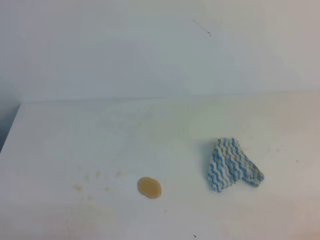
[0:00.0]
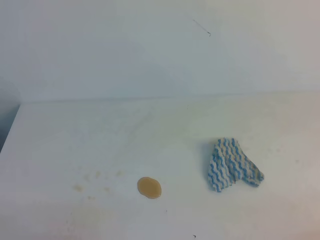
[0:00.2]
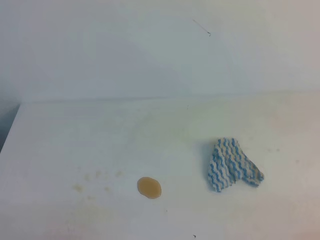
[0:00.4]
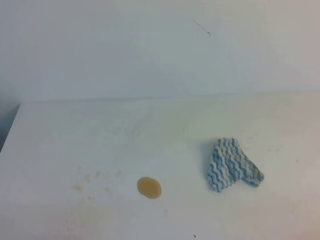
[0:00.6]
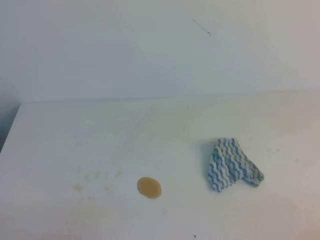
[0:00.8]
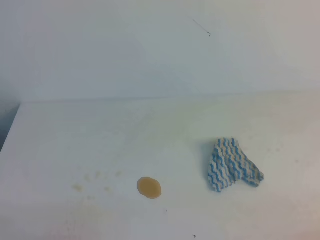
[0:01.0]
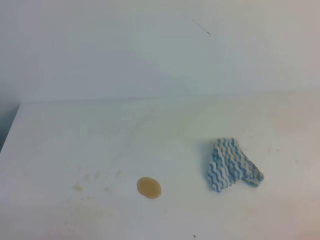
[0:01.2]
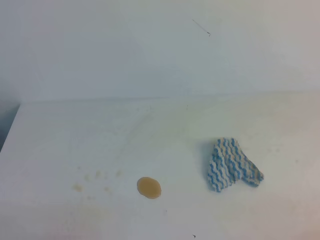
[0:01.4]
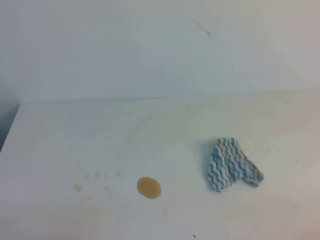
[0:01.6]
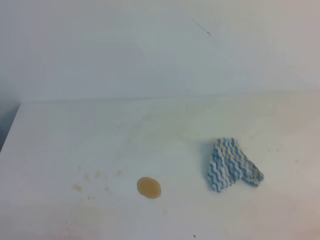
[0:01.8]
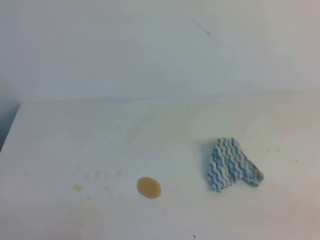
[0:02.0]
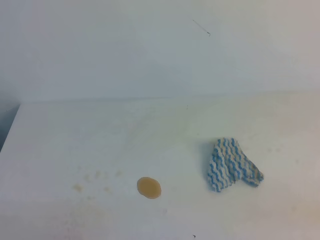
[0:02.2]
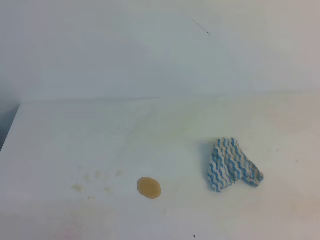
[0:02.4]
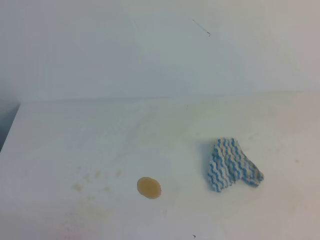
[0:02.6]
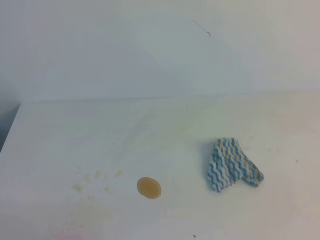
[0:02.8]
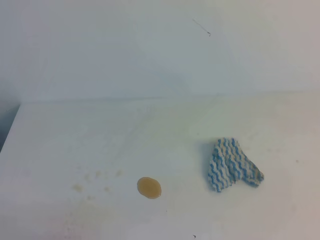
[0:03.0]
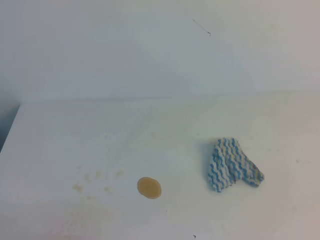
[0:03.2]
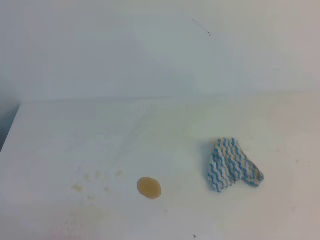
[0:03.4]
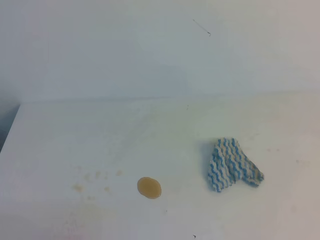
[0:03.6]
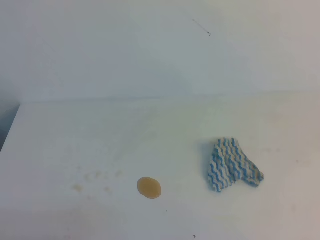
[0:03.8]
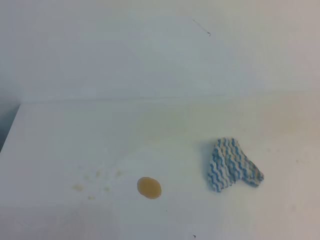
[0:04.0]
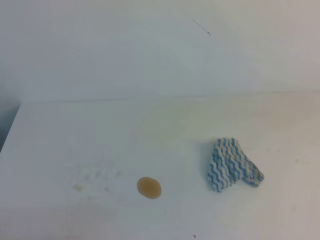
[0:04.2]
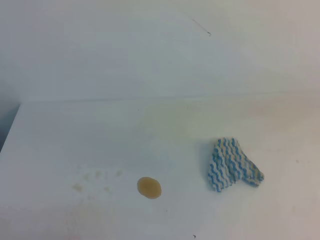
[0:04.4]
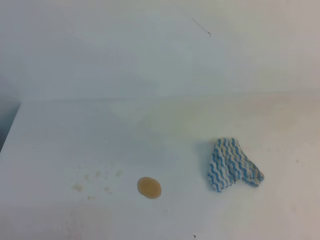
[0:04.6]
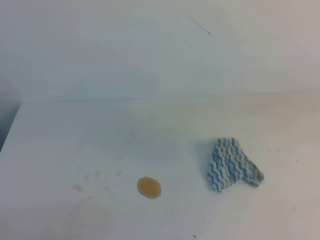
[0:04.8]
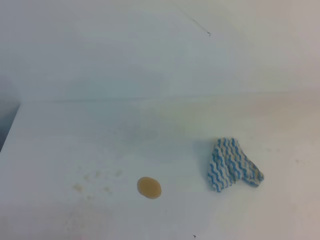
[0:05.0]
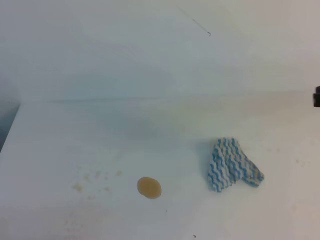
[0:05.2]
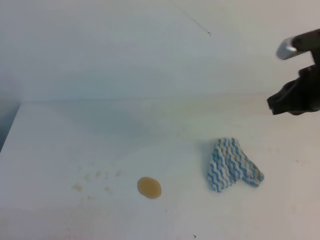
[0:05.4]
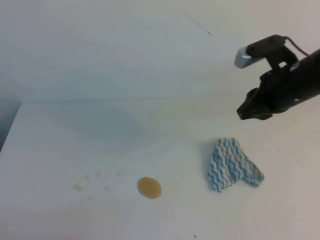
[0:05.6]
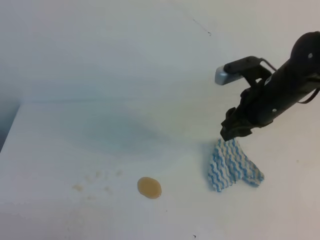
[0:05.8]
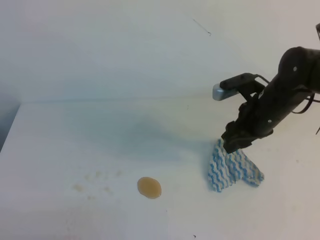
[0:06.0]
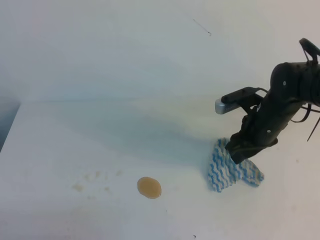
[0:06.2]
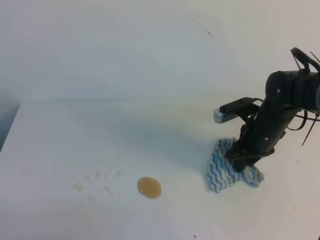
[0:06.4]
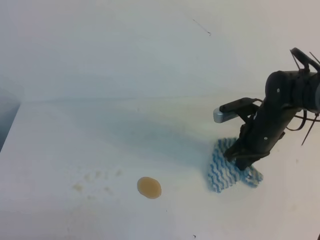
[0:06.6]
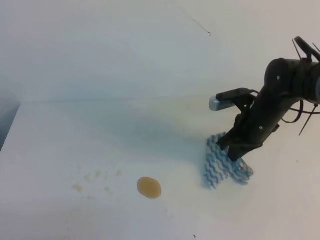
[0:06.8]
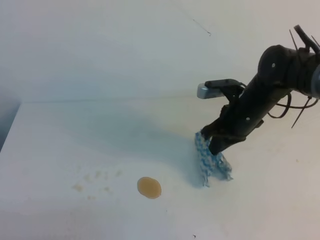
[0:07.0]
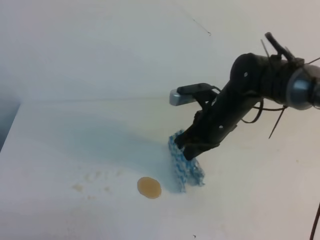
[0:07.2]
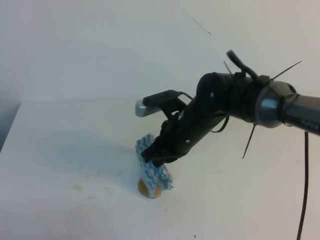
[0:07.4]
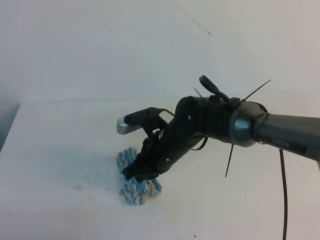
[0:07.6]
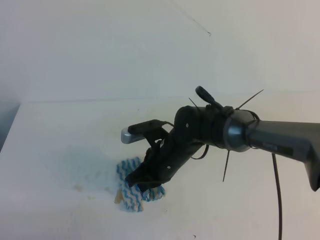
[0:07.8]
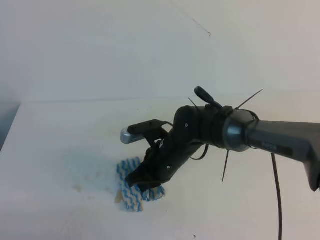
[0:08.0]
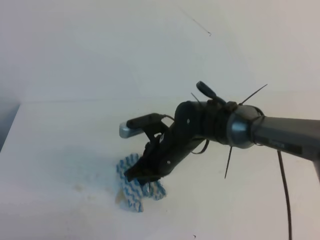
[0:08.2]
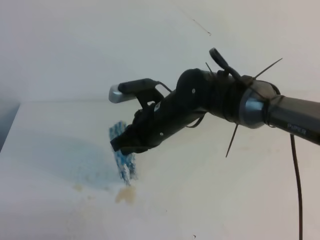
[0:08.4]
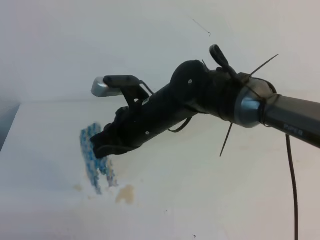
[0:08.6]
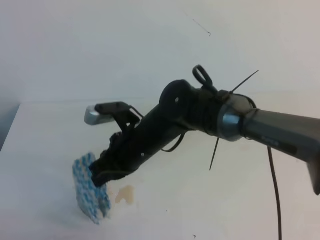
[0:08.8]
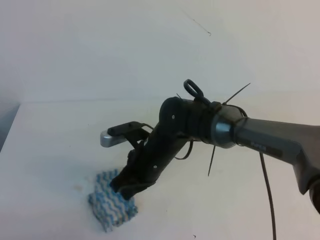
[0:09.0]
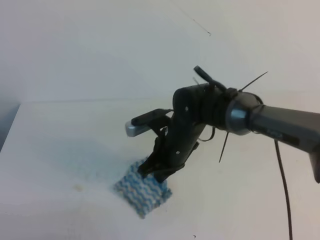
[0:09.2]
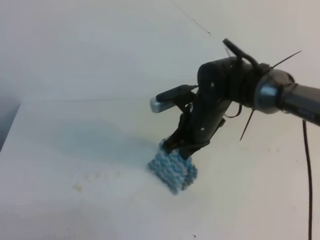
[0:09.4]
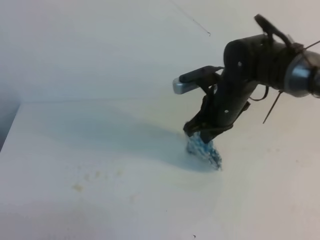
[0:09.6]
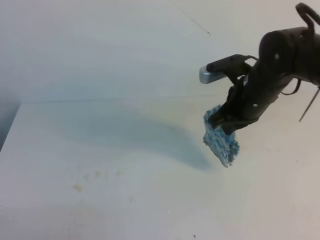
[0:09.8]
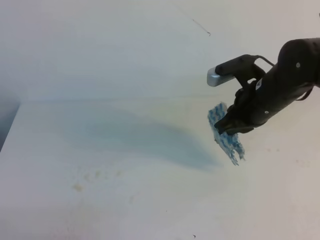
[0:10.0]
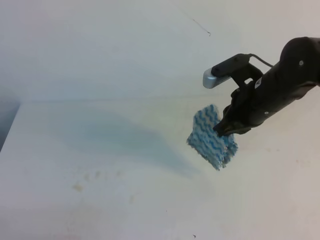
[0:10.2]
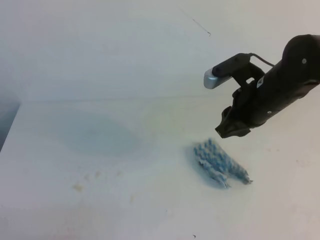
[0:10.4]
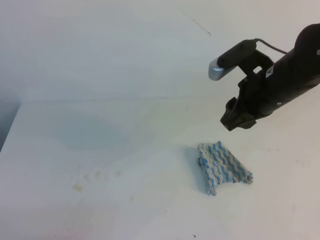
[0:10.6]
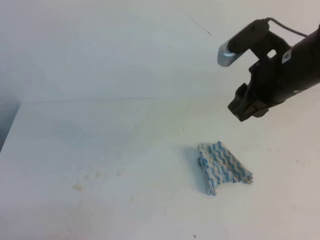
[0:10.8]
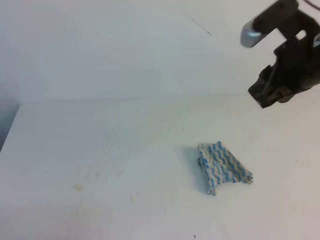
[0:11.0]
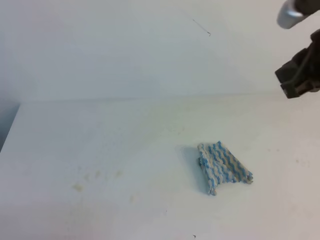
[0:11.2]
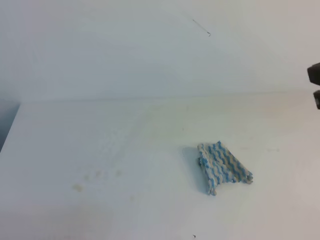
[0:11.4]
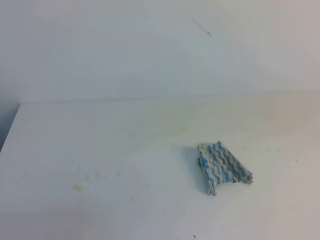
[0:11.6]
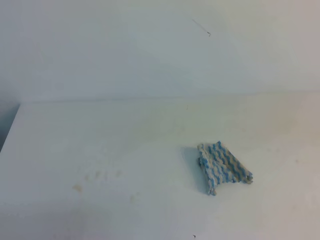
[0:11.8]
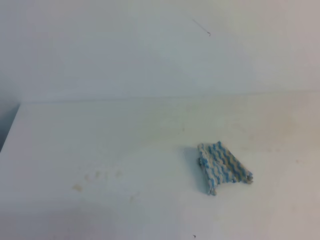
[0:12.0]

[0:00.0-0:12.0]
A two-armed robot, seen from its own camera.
0:00.0 to 0:01.6: Neither gripper changes place.
0:04.4 to 0:06.0: The right gripper moves forward, to the left and downward, roughly 25 cm, and opens up.
0:06.0 to 0:07.6: The right gripper is displaced to the left by some 15 cm, and closes up.
0:07.6 to 0:09.0: The right gripper moves about 5 cm upward and comes back.
0:09.0 to 0:10.4: The right gripper moves to the right and upward, about 20 cm, and opens its fingers.
0:10.4 to 0:12.0: The right gripper is displaced backward, to the right and upward by roughly 25 cm, and closes up.

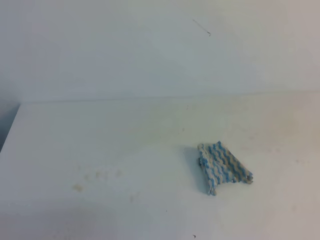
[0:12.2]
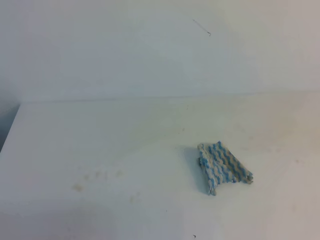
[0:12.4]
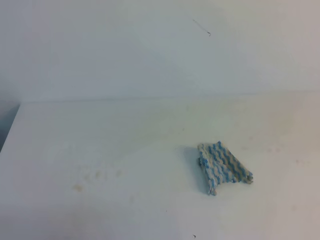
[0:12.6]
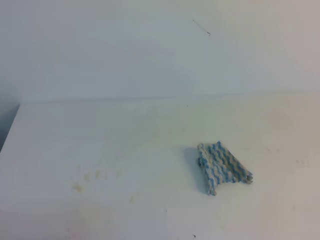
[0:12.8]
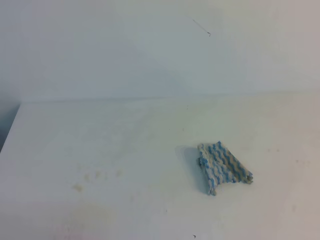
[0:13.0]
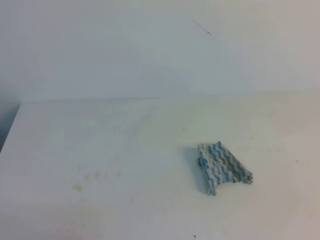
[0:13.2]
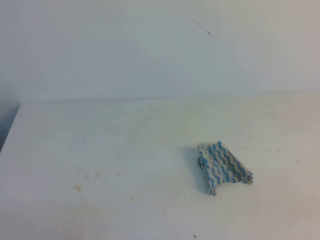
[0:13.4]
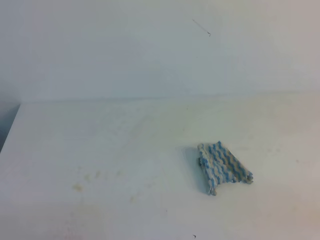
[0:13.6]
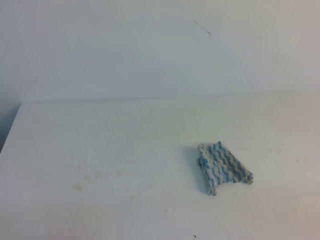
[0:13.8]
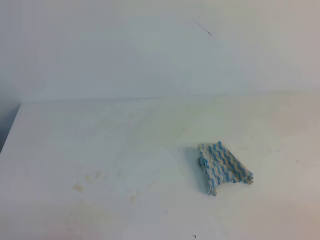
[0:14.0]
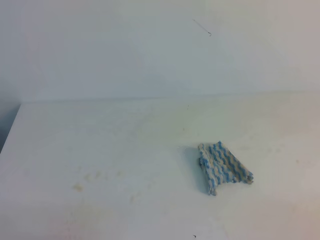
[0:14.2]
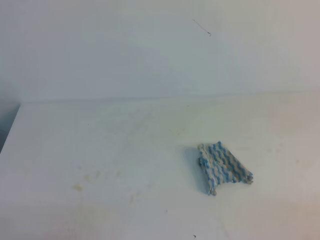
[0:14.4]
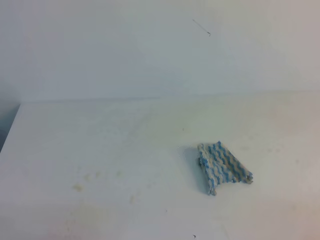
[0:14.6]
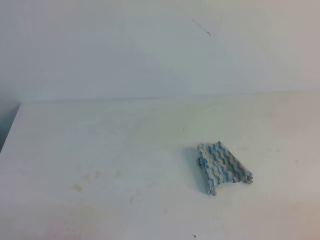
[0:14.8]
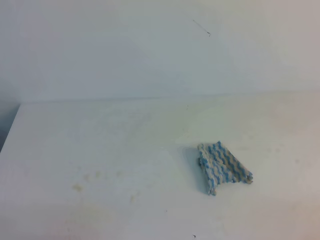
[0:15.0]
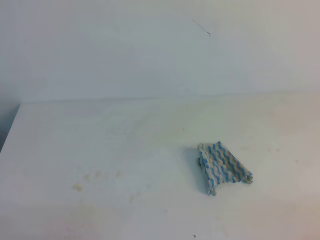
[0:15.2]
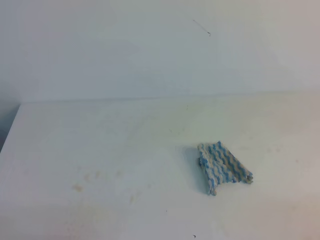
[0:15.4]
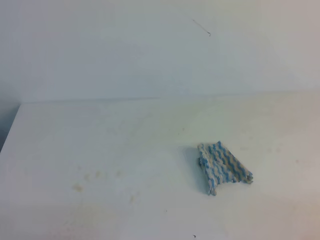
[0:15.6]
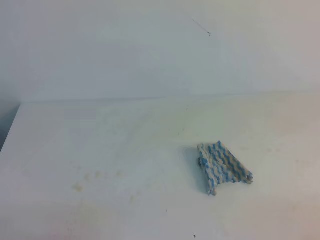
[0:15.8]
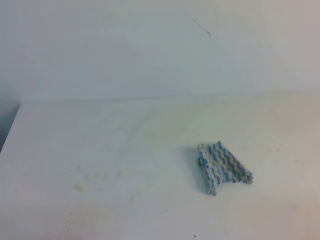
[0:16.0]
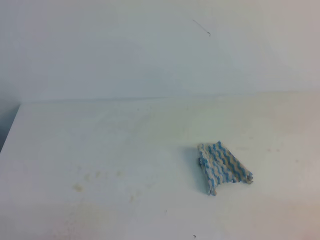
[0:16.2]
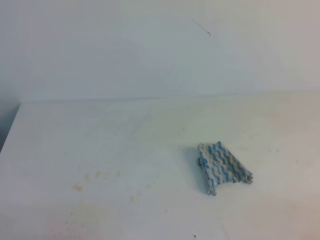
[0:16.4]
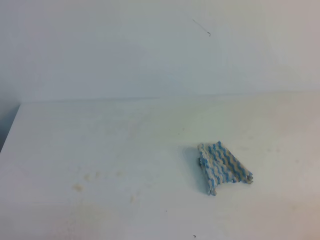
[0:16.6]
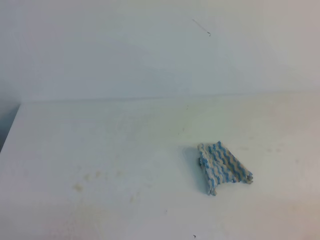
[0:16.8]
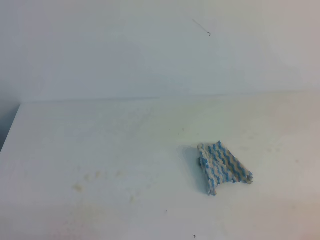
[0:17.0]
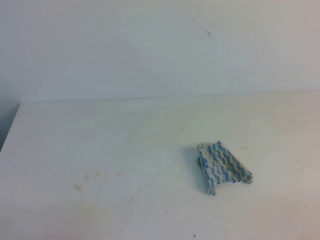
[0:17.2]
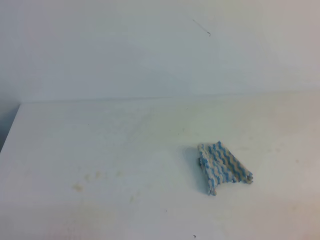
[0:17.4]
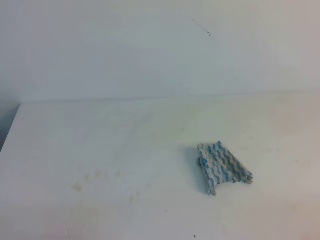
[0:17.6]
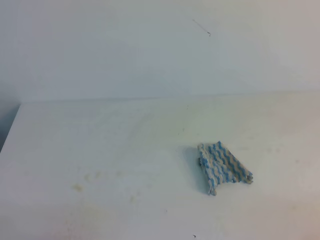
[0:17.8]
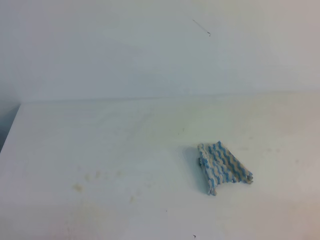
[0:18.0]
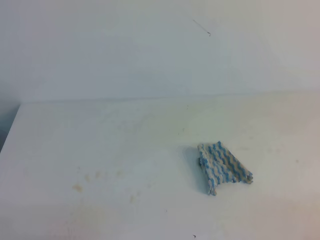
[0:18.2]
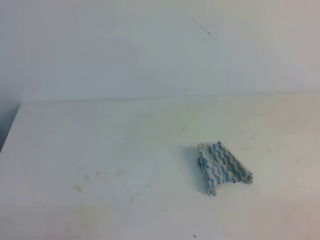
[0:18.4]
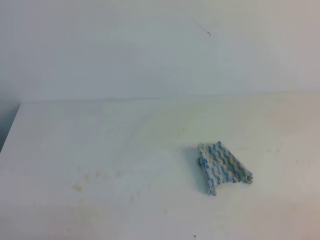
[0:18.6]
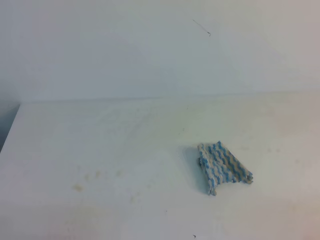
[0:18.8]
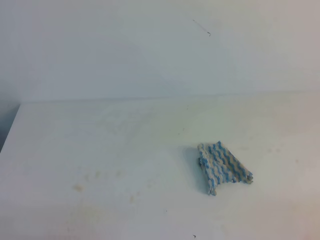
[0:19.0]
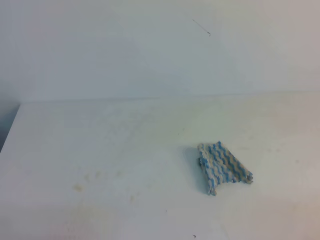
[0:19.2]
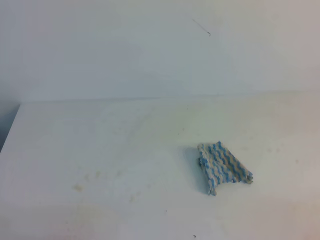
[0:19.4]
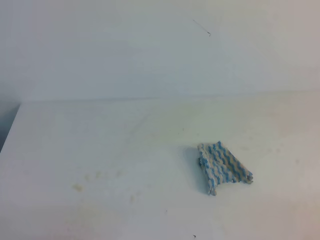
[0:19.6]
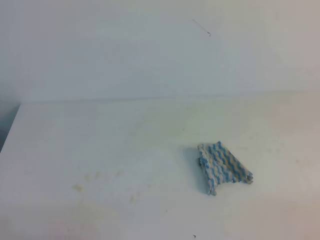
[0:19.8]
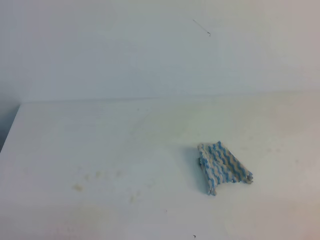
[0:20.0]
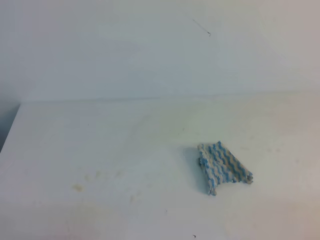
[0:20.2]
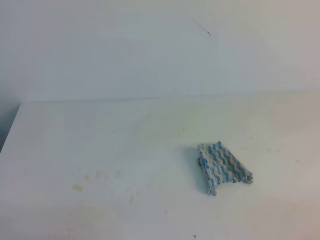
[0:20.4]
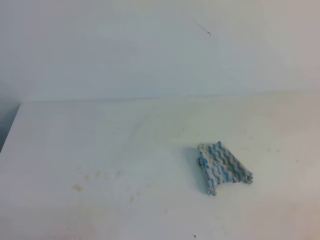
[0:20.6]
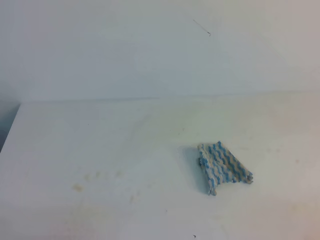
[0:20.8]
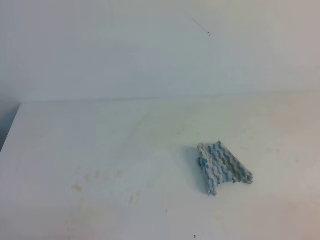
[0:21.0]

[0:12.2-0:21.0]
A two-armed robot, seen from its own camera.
0:15.2 to 0:21.0: Neither gripper changes place.
